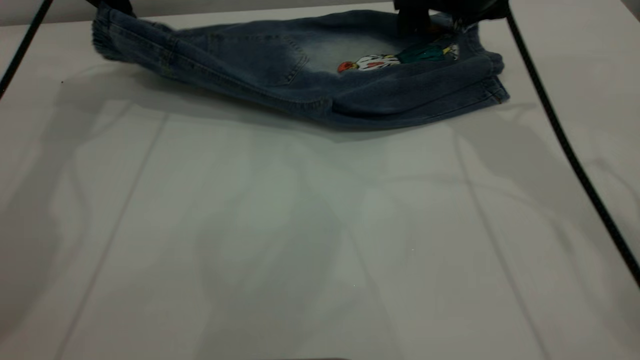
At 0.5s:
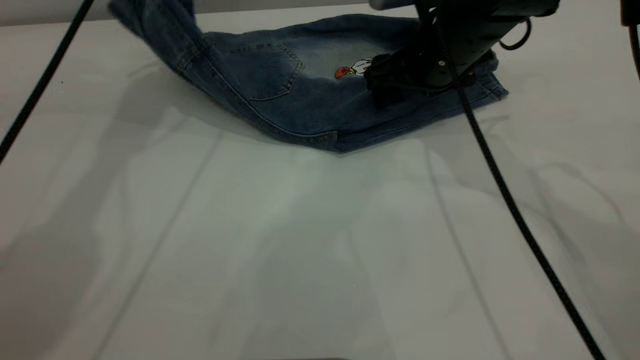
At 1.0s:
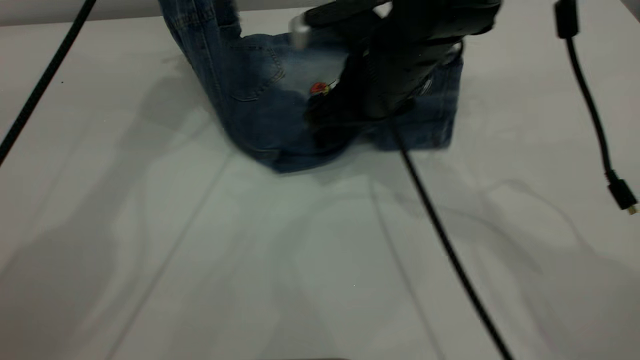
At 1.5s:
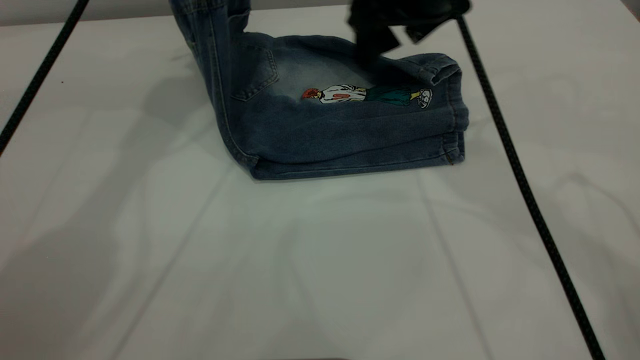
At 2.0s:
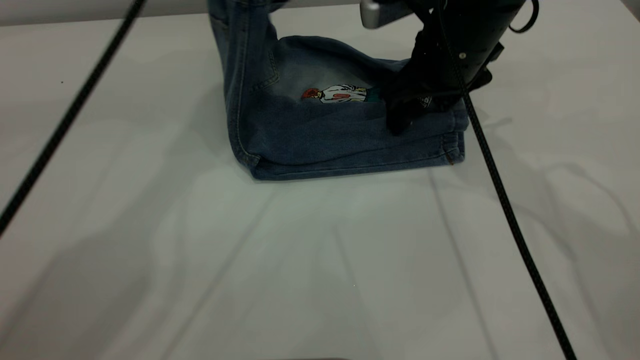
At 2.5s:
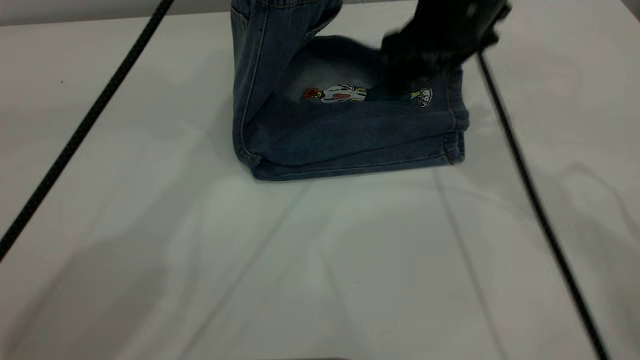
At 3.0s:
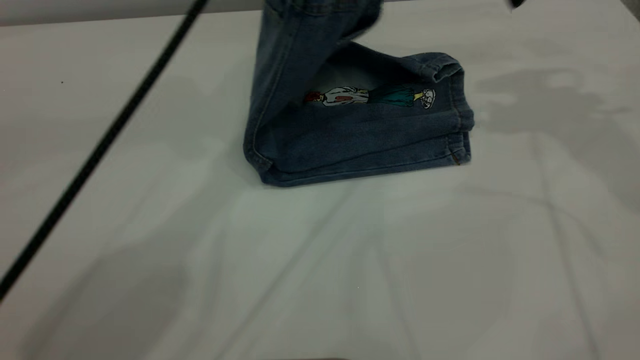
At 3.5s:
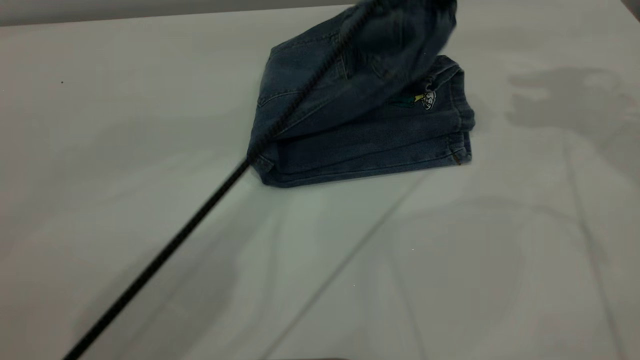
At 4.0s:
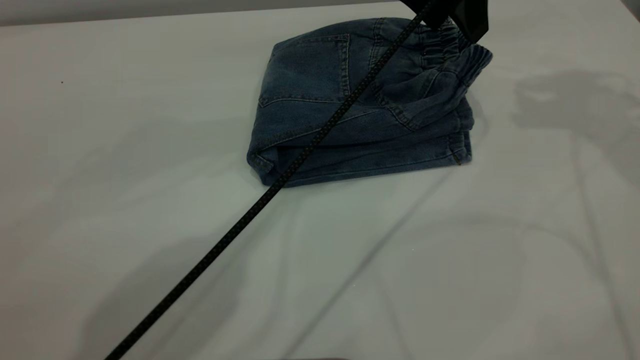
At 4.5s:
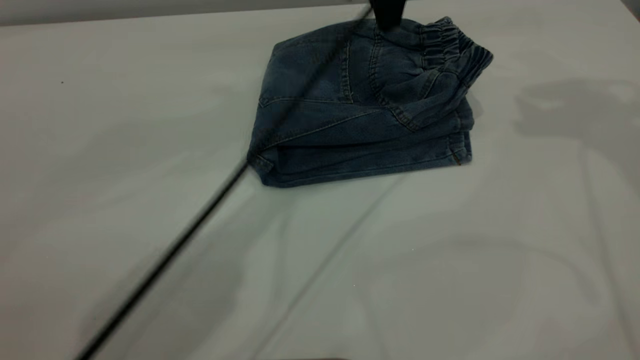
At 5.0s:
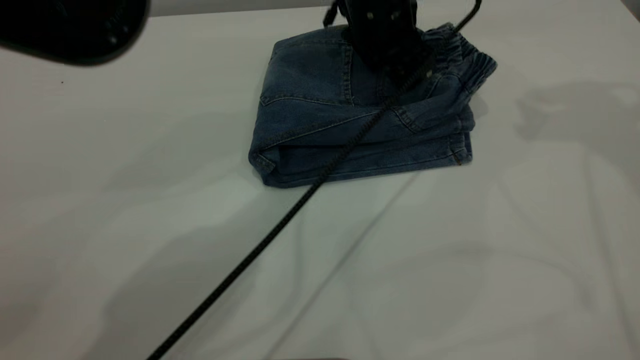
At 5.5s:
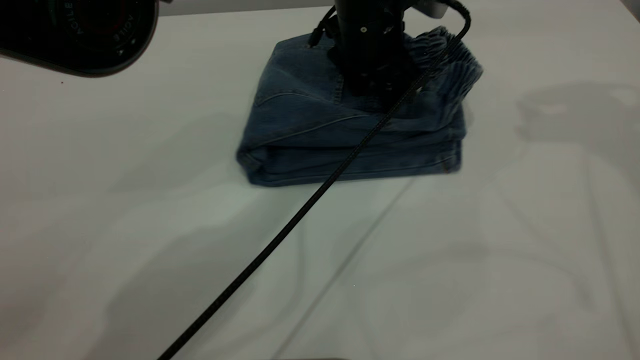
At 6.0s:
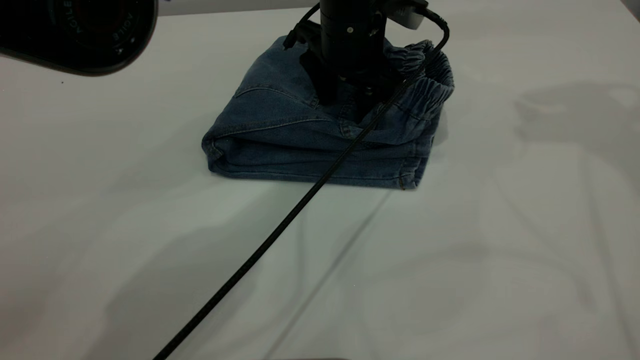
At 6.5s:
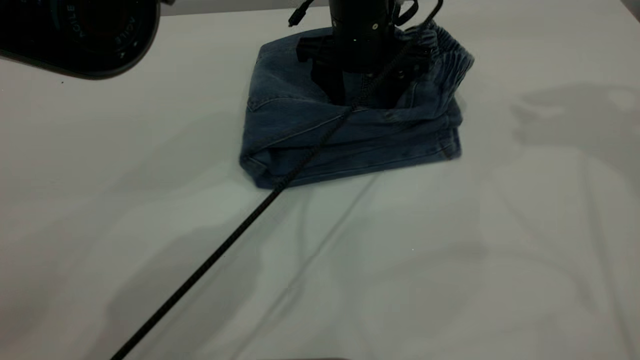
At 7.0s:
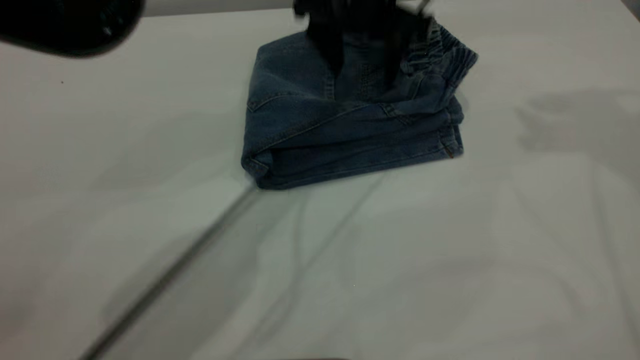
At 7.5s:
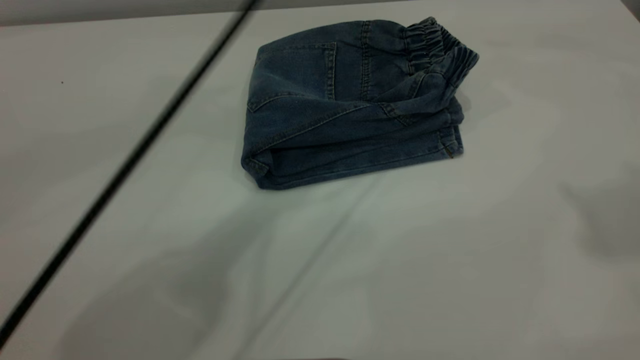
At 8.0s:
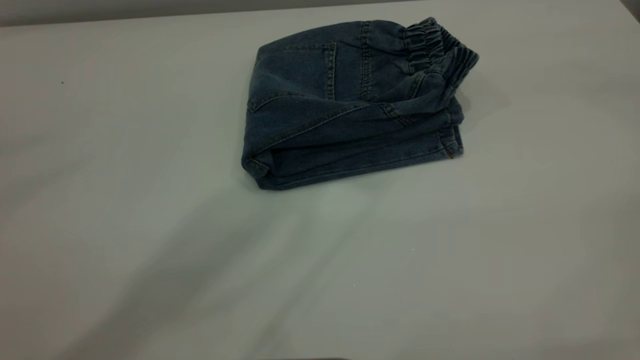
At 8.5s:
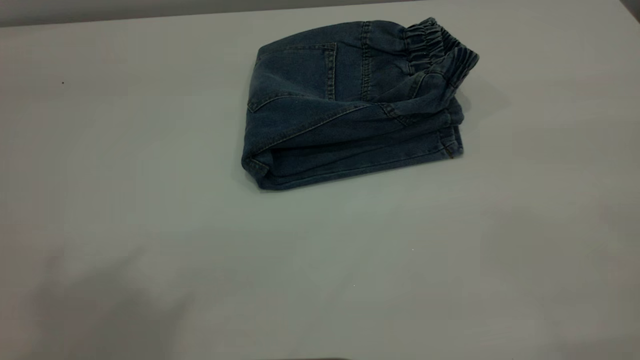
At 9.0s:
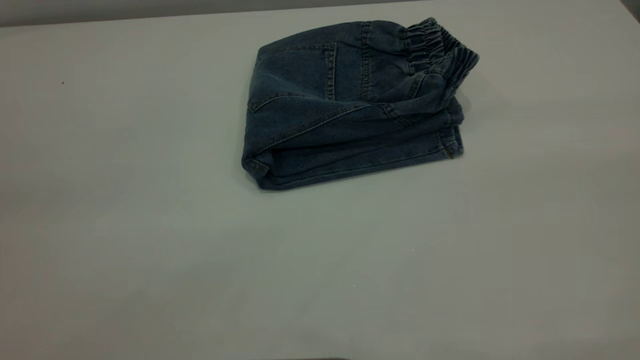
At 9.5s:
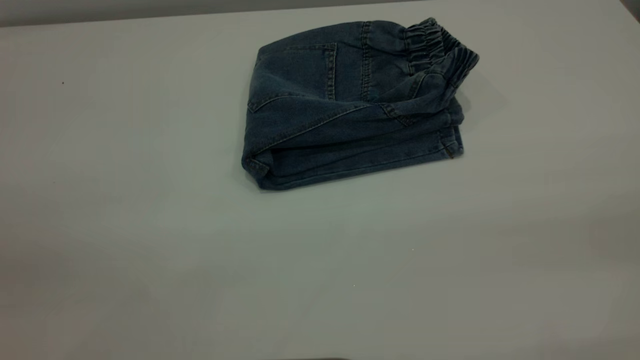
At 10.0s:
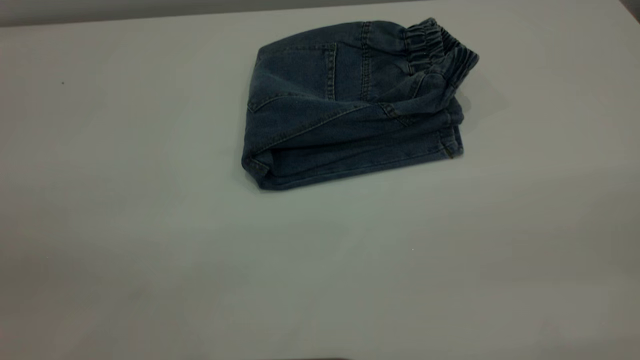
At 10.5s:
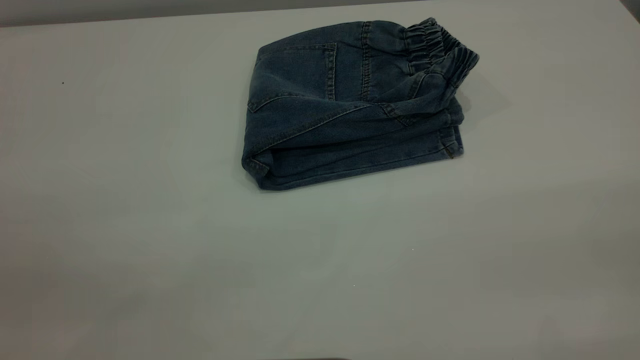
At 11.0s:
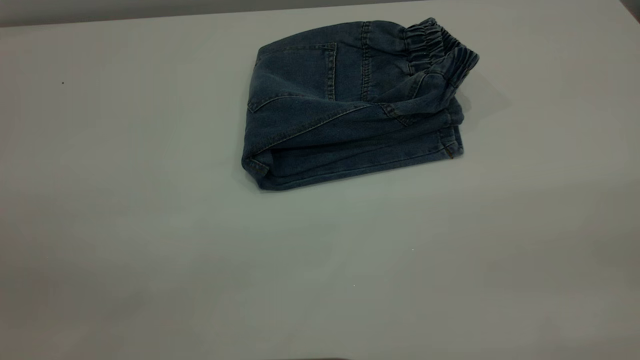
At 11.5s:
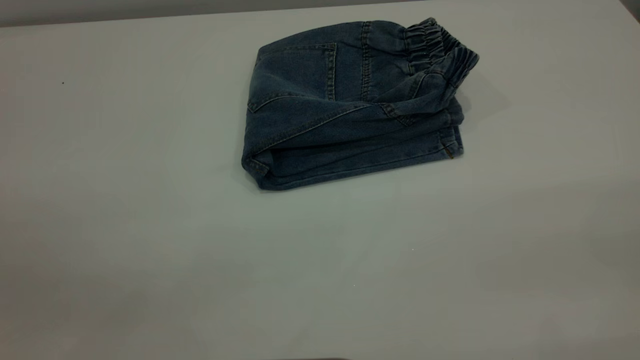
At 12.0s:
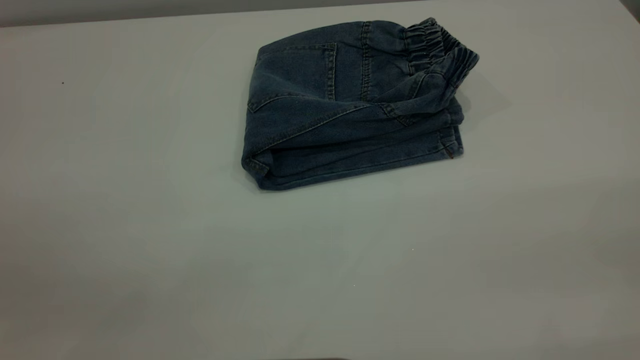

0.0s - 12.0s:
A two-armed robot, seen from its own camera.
Step, 0.0s - 4.0s: Fold the pants from left to right.
0.0s - 2.0s: The left gripper is displaced to the right and upward by about 25 cm. Meanwhile the right gripper reaches some 10 cm to the left, then returns.
2.0s - 4.0s: The left gripper is displaced to the right and downward by approximately 15 cm, and opens up. The right gripper moves upward and to the right, about 25 cm.
4.0s - 6.0s: The left gripper is displaced downward by roughly 10 cm.
6.0s - 8.0s: The left gripper is displaced upward by roughly 40 cm. Meanwhile the right gripper shifts about 35 cm backward and upward.

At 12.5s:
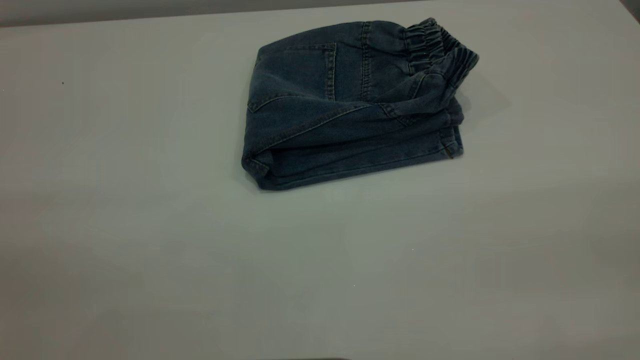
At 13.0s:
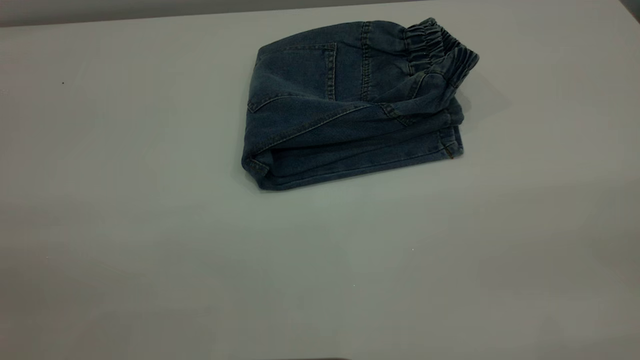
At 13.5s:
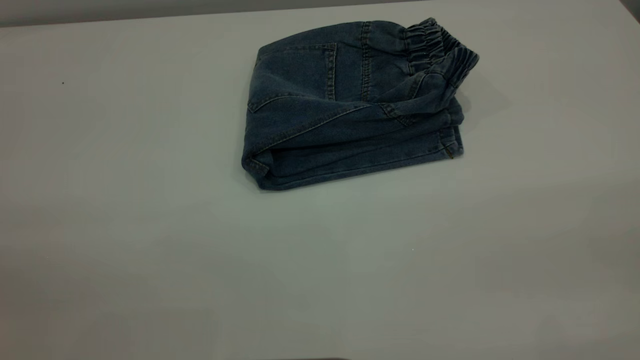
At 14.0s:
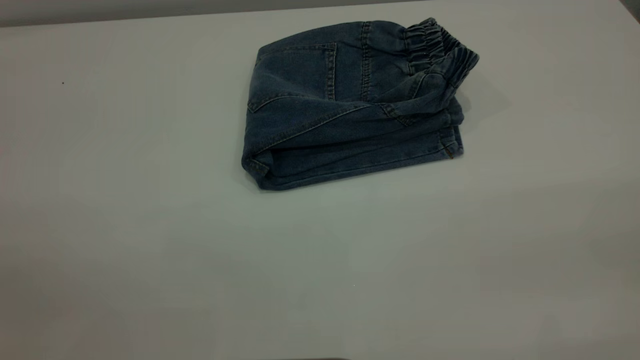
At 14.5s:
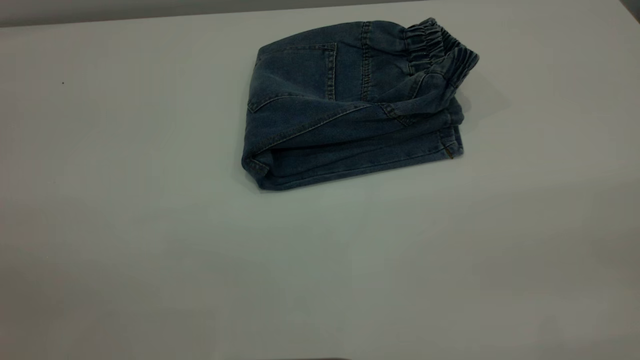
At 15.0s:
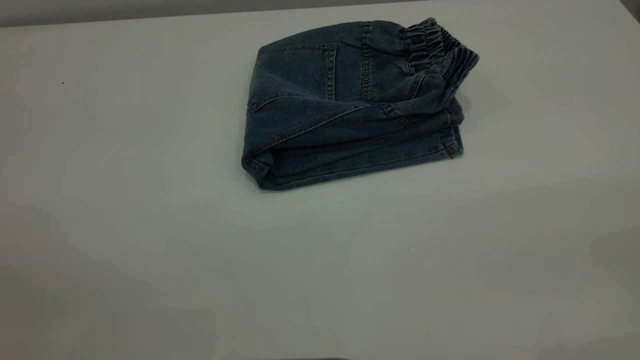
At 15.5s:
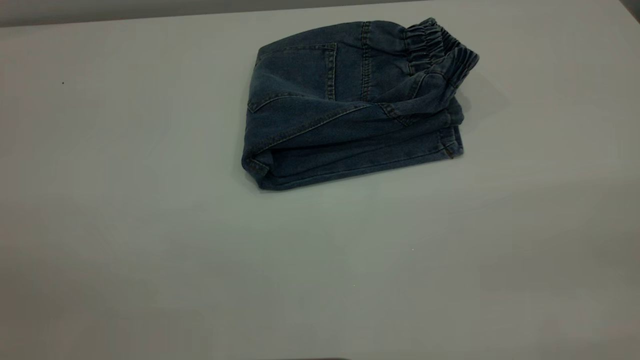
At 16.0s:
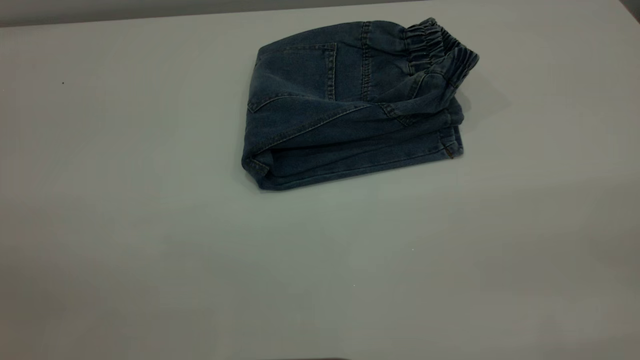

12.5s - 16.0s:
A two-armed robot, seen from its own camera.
14.5s - 16.0s: Both grippers stay put.
